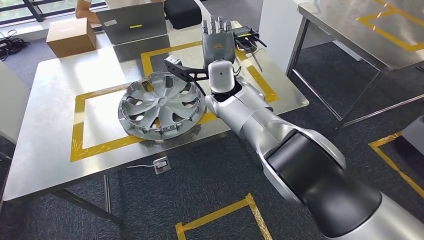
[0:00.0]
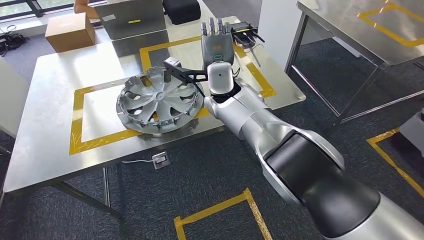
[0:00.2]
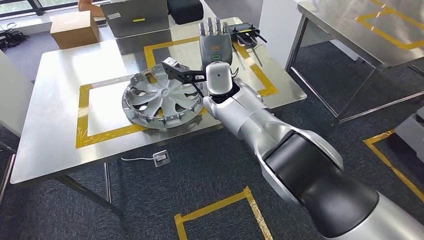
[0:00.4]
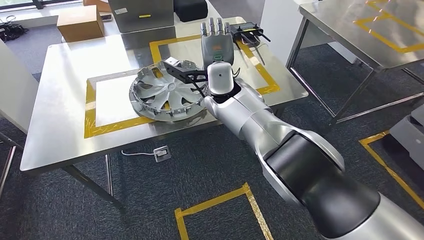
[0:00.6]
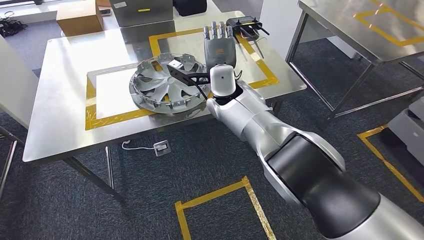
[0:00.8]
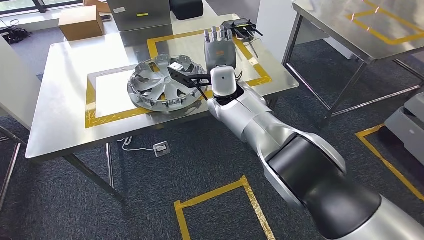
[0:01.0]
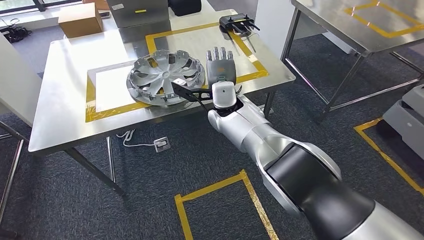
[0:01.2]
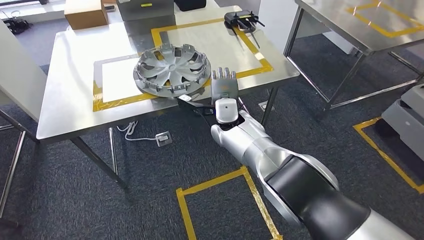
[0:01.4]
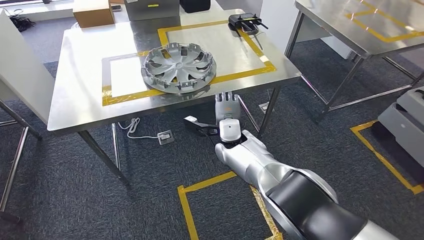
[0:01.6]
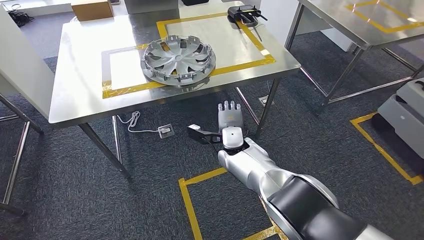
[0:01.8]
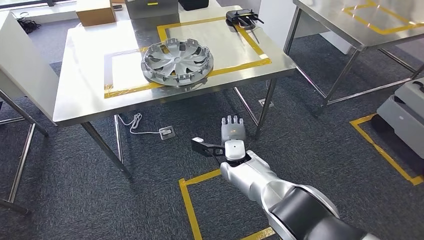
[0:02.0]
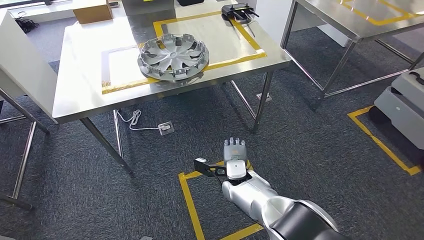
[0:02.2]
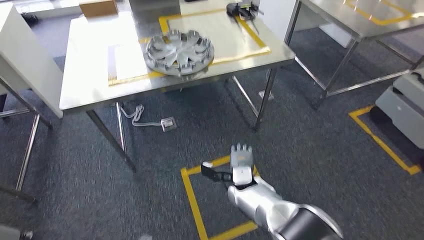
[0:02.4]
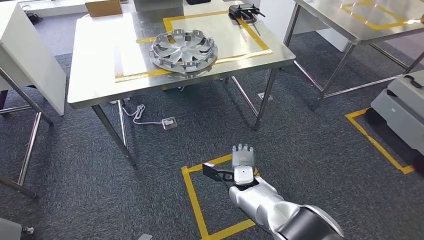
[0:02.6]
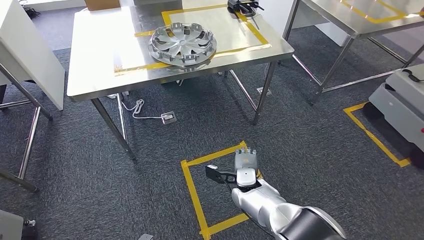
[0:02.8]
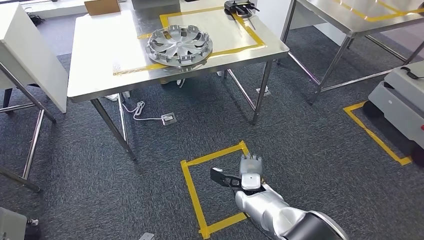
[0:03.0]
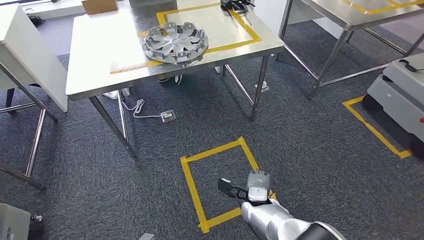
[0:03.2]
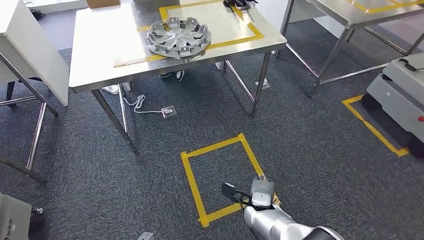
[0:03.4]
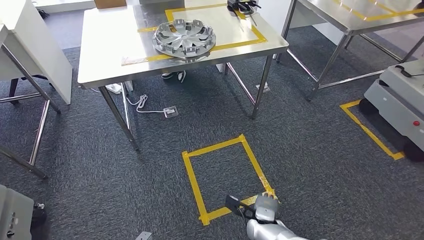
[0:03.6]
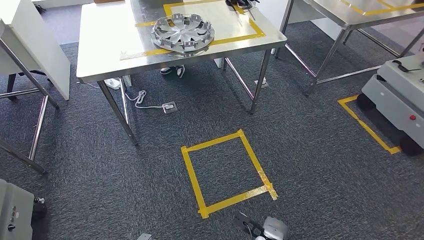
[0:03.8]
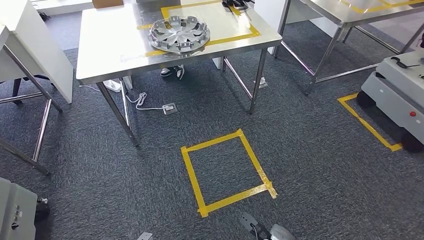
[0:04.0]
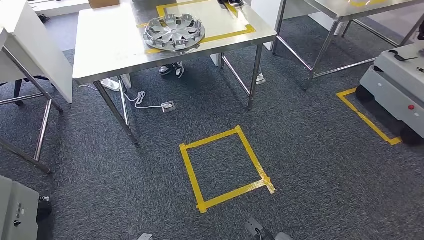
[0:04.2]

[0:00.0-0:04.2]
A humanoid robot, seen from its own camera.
Step, 0:00.2 to 0:04.0: Return to the initial position at the workbench.
